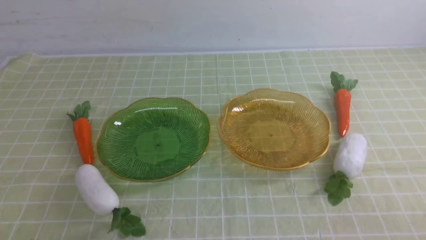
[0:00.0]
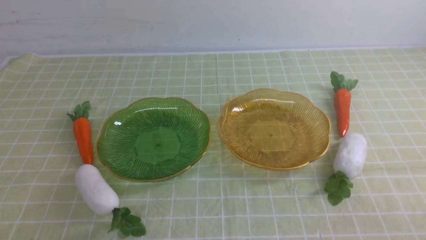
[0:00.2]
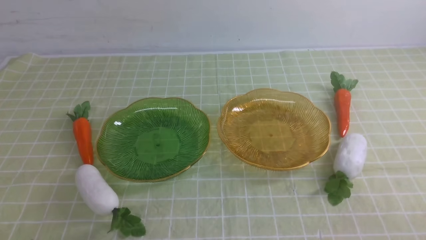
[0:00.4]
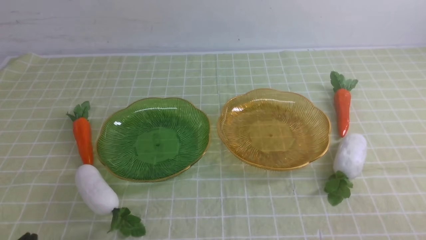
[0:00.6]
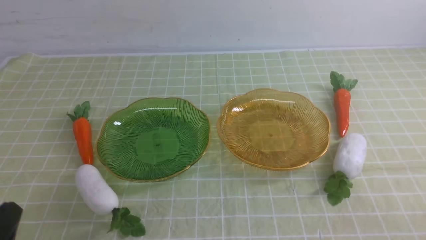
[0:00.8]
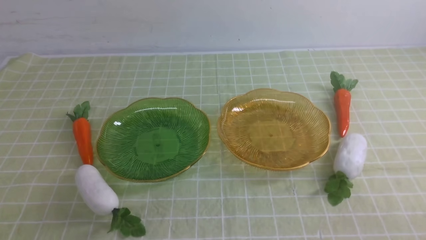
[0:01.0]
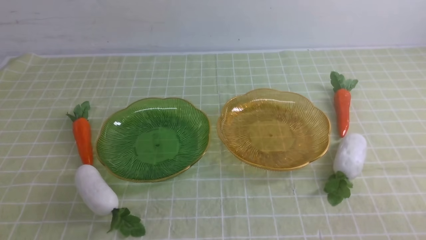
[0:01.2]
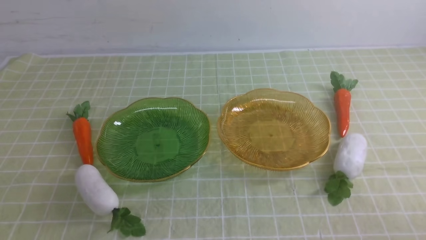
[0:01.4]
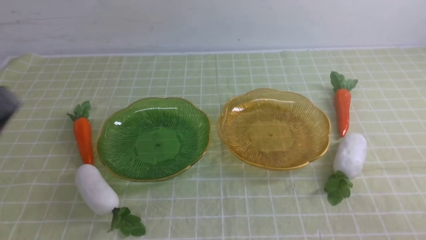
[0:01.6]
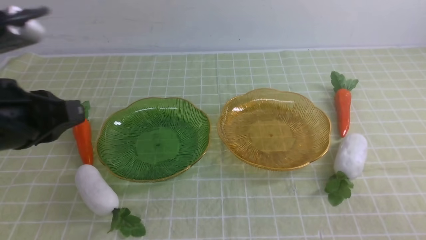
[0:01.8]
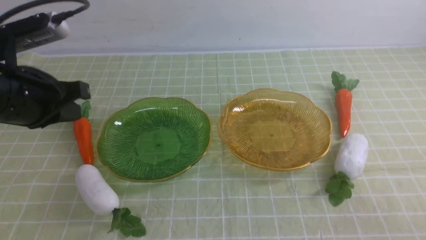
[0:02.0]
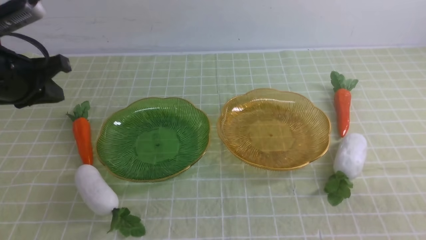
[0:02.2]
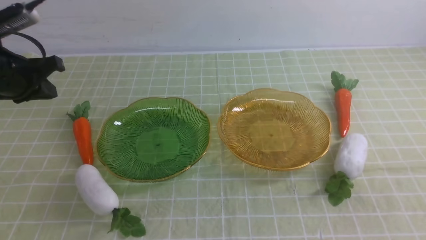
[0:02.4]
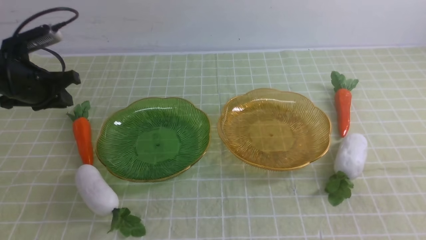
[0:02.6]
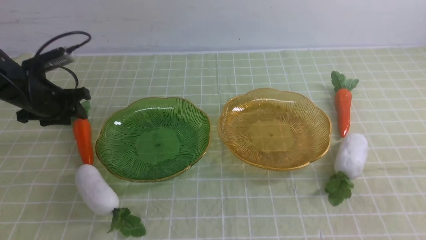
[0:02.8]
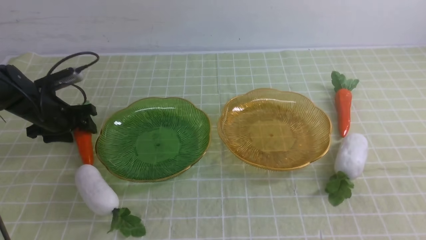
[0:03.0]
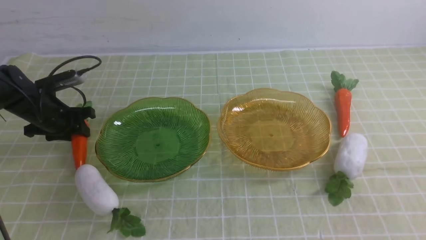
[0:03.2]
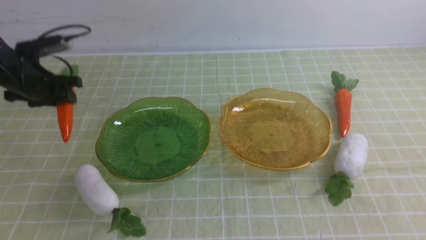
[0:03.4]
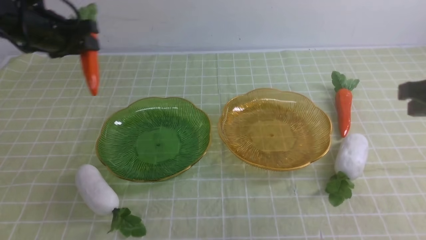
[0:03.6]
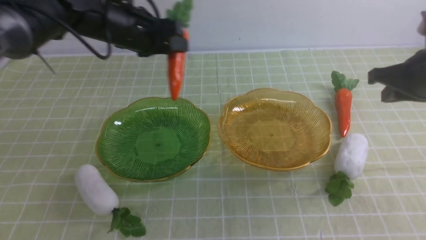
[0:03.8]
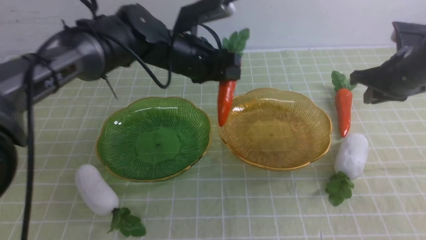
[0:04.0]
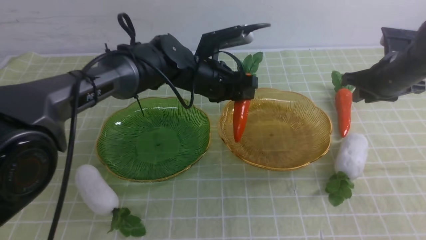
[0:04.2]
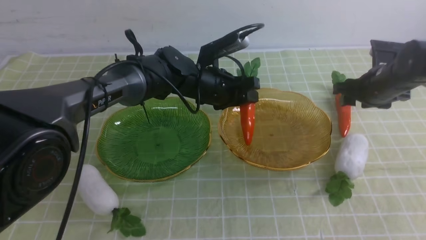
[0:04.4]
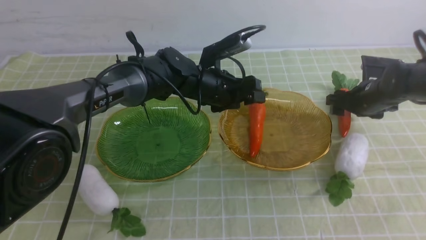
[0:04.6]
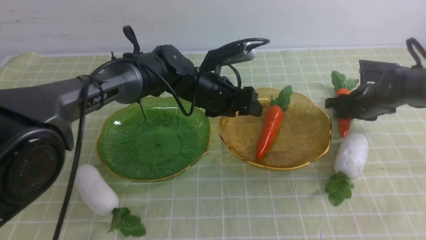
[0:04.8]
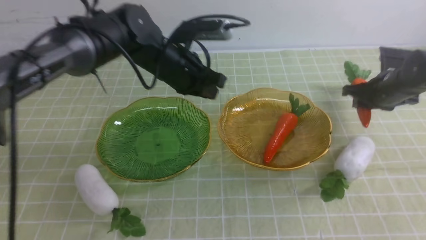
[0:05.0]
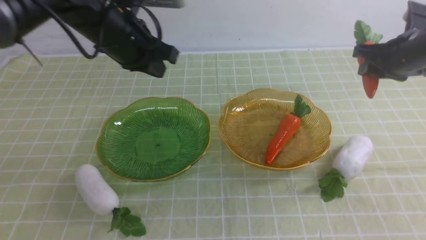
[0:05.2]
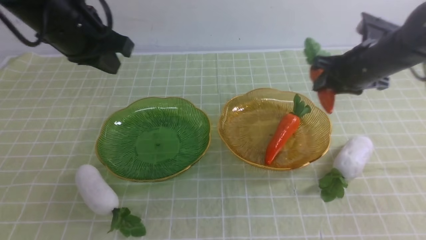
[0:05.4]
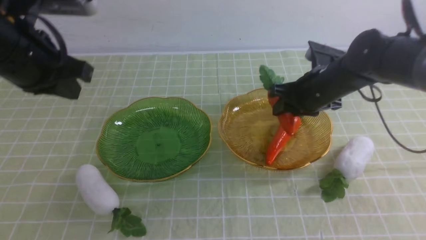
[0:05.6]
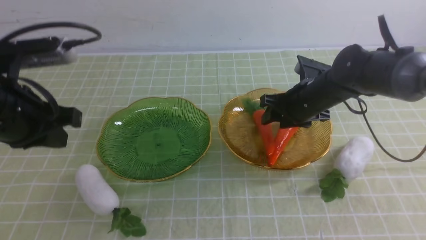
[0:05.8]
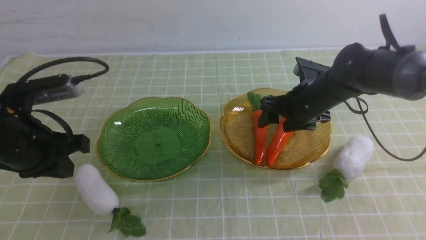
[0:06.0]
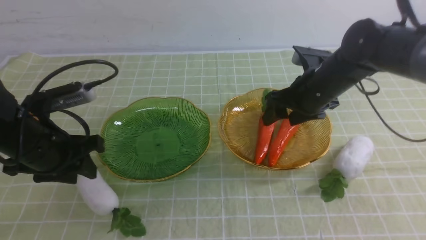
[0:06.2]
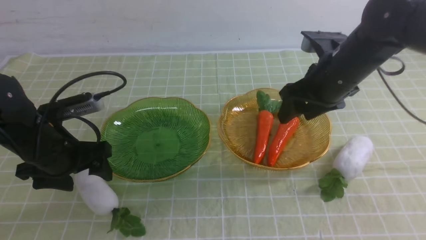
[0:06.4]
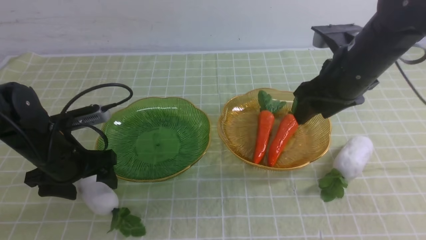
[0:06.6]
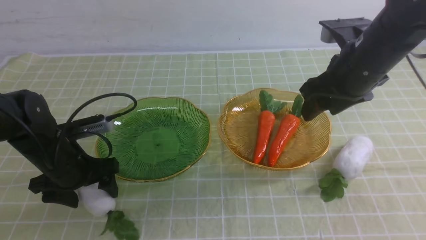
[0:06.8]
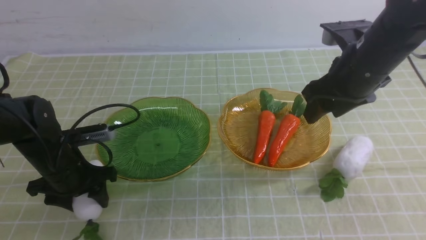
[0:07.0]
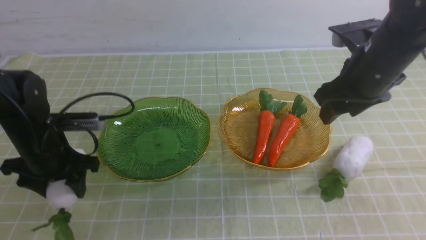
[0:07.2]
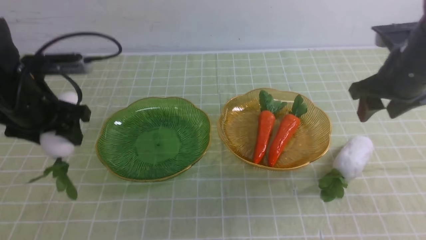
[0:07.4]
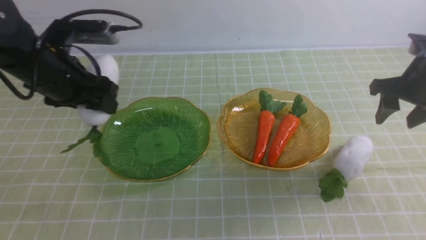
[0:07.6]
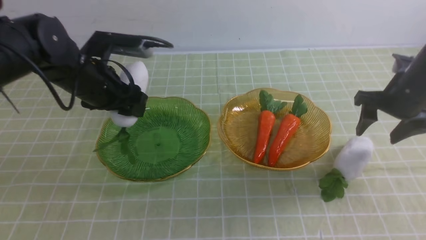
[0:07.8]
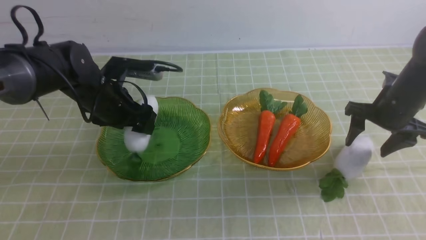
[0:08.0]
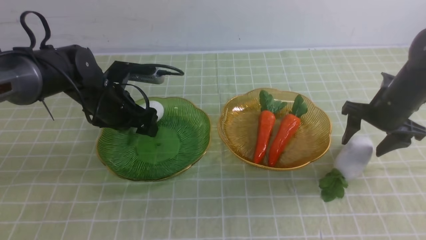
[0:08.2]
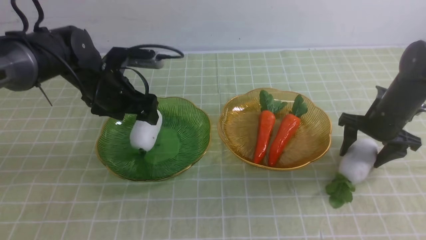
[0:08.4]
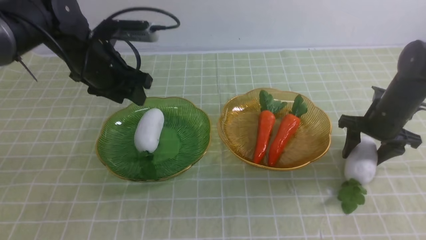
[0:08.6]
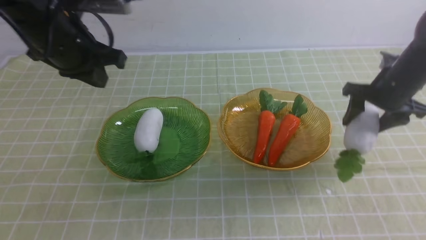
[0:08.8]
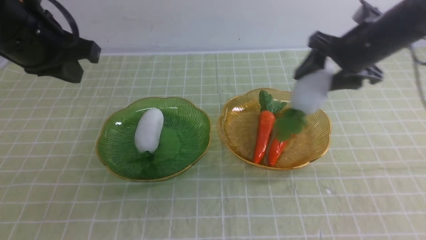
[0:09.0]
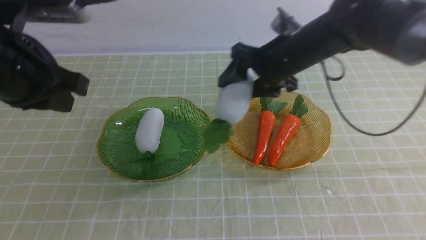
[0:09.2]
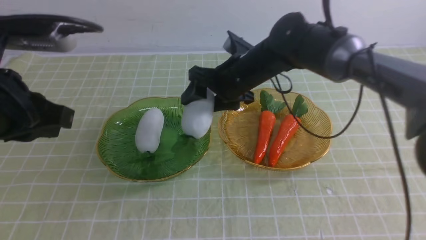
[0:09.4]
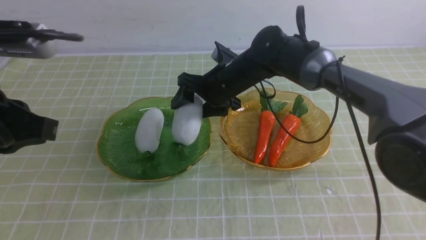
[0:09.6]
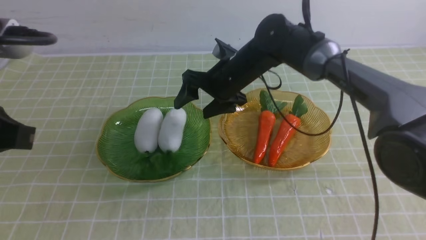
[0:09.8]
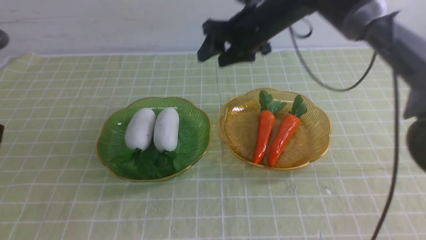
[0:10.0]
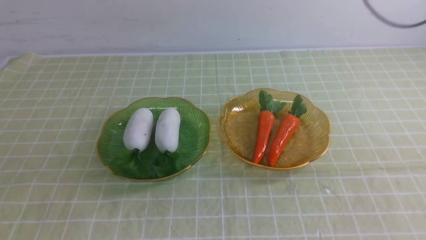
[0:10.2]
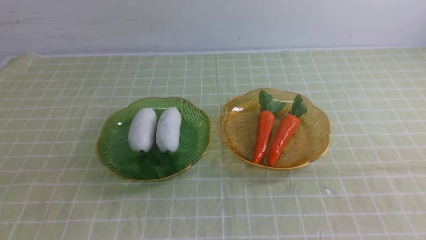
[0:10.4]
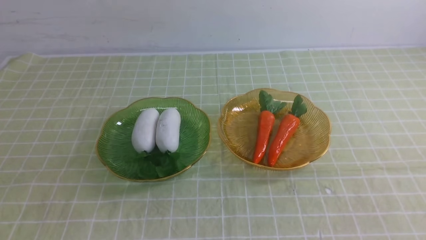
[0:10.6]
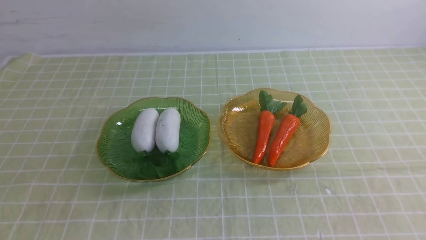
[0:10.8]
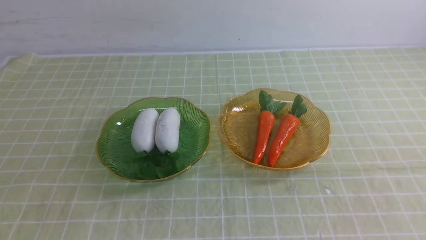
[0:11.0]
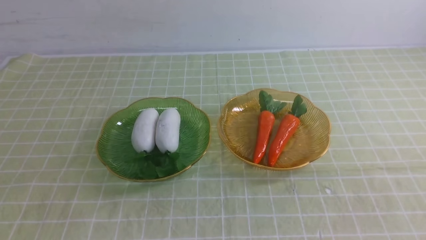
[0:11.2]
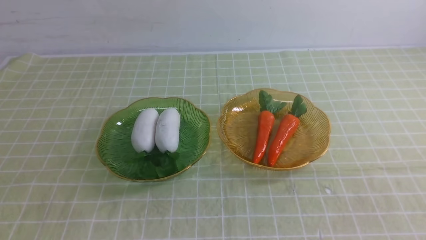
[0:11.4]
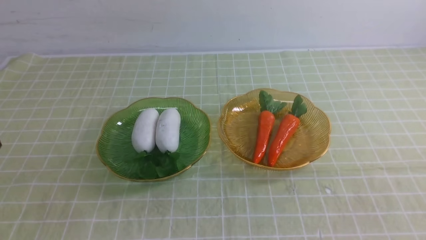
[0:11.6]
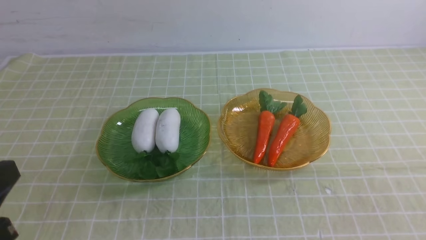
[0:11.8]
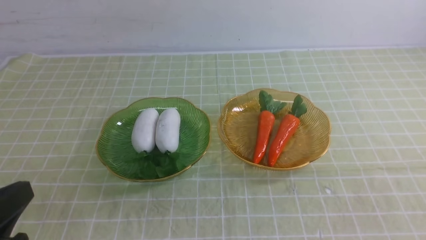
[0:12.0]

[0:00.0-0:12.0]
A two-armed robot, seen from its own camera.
Step, 0:00.0 to 0:05.0: use the left arm to grab a carrot and put it into the right plate.
Step, 0:05.2 to 0:06.8: use the right arm to grab a carrot and put it into the left plate.
Step, 0:07.0 to 0:08.4: use the left arm to grab a radish and put it into the left plate.
Step, 0:08.8 to 0:10.2: use the right arm to grab a radish and put it into the left plate.
0:01.6 to 0:03.0: The left gripper goes approximately 35 cm forward and downward, and opens its fingers.
0:03.0 to 0:04.4: The right gripper goes approximately 35 cm forward and downward, and opens. Meanwhile the left gripper is displaced to the right by roughly 30 cm.
0:04.4 to 0:06.0: The left gripper heads to the left and backward, covering approximately 30 cm, and closes its fingers, while the right gripper shifts approximately 15 cm to the left.
0:06.0 to 0:07.6: The left gripper heads forward, covering some 10 cm, travels downward and back again, some 10 cm each way, and opens; the right gripper shifts some 15 cm to the right.
0:07.6 to 0:09.0: The left gripper goes roughly 10 cm upward, and closes. Meanwhile the right gripper travels to the left by approximately 10 cm.
0:09.0 to 0:10.4: The right gripper goes approximately 30 cm upward and backward, and closes; the left gripper heads backward, covering roughly 20 cm.
0:10.4 to 0:12.0: The left gripper goes some 15 cm downward.

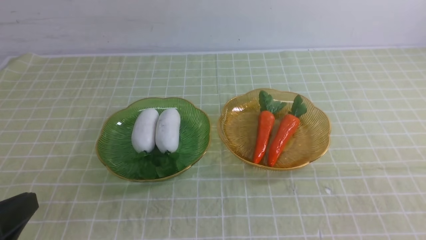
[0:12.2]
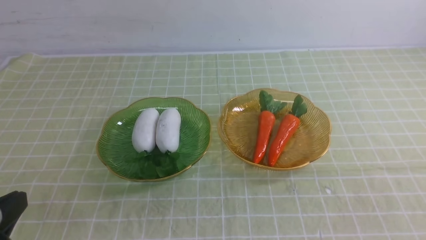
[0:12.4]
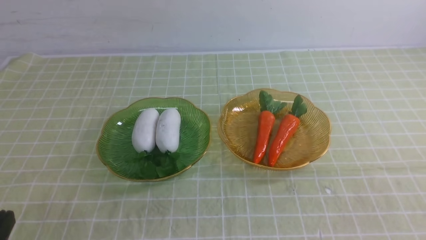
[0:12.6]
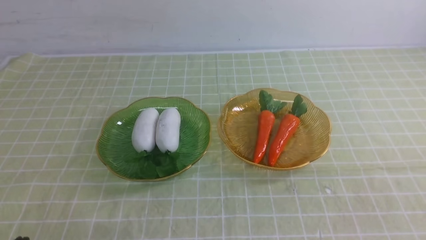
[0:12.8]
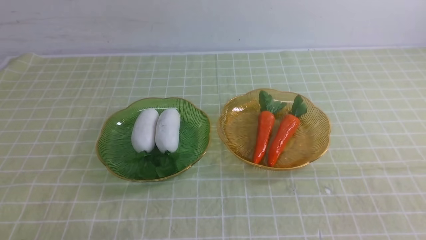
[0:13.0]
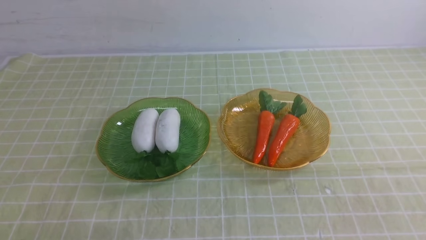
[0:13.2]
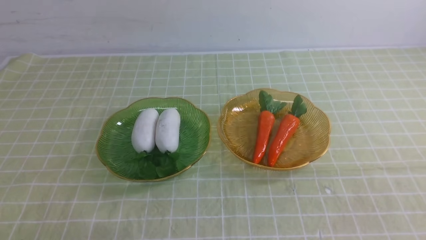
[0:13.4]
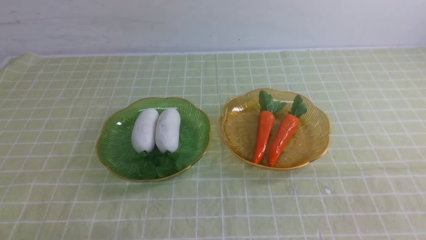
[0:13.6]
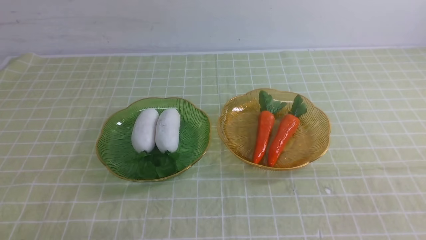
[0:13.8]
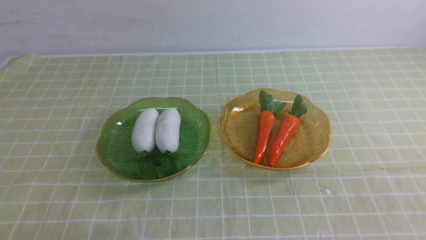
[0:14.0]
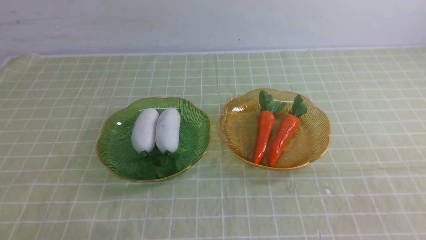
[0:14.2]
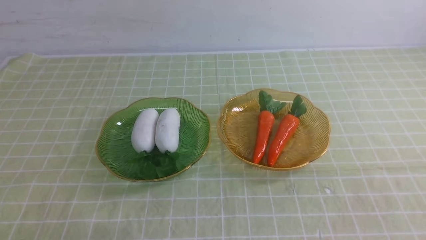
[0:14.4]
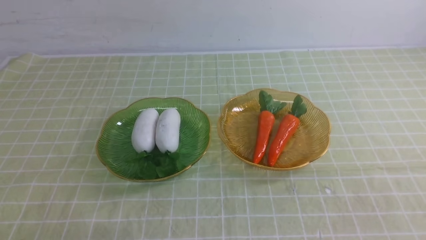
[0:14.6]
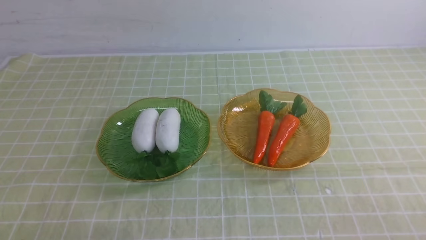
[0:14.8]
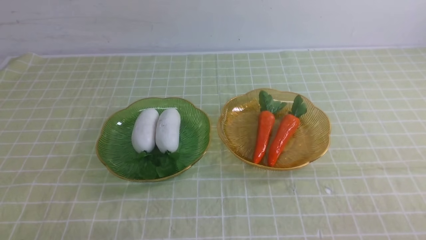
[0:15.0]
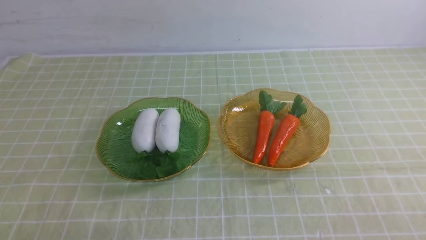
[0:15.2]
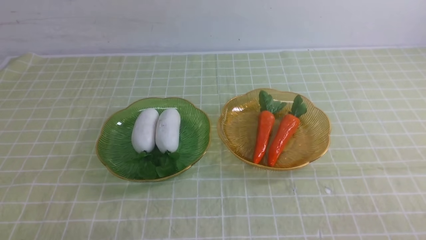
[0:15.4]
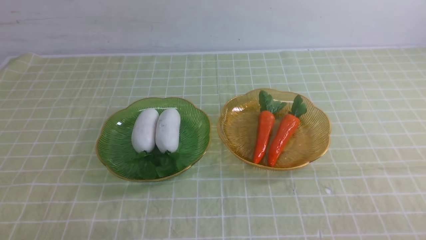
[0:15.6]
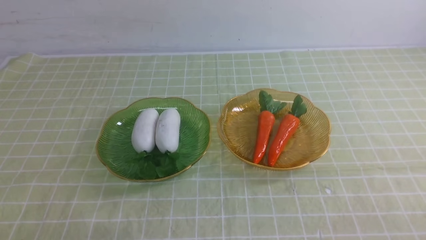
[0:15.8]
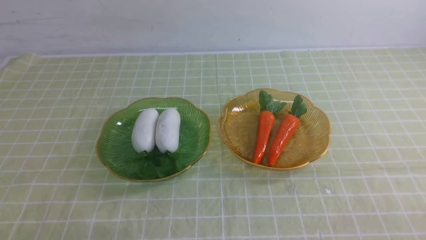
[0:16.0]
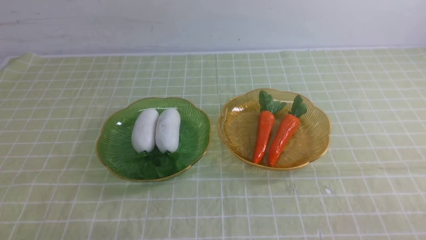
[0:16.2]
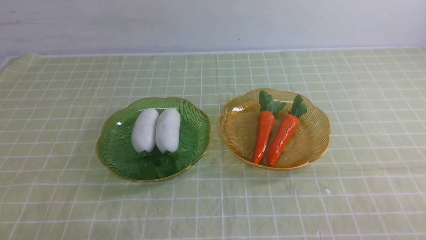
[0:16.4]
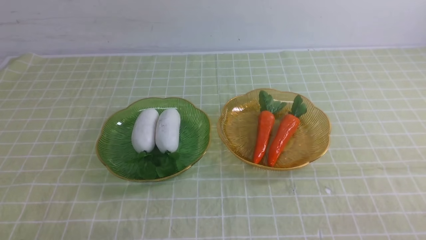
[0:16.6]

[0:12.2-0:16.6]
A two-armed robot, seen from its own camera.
0:12.2 to 0:13.6: The left gripper travels downward by roughly 10 cm.
0:15.2 to 0:16.6: The two grippers keep their place.
